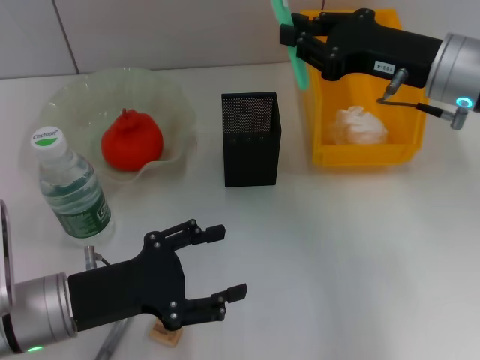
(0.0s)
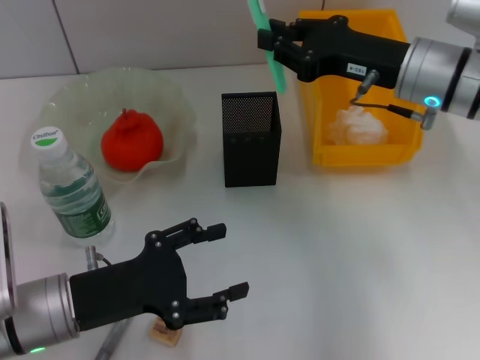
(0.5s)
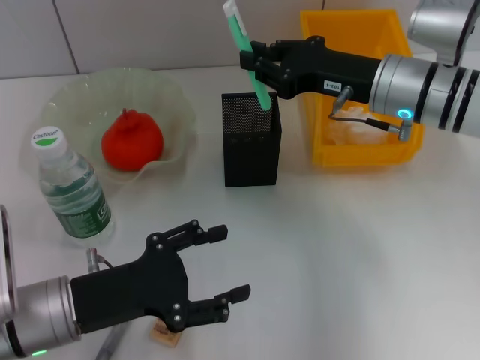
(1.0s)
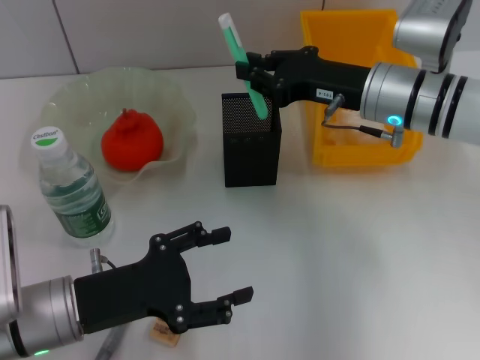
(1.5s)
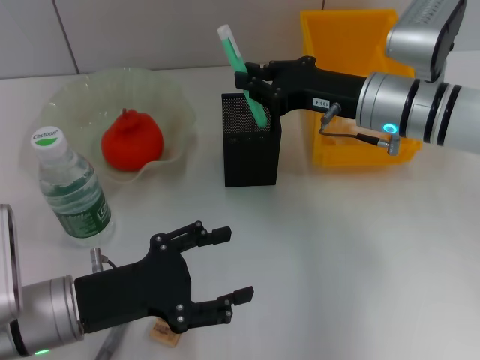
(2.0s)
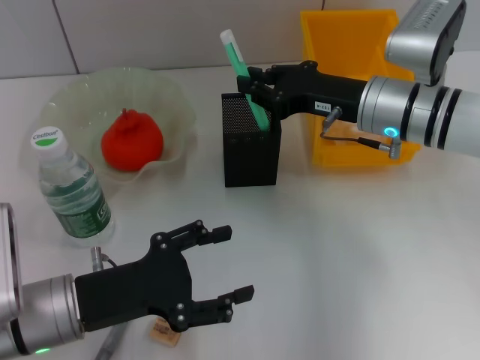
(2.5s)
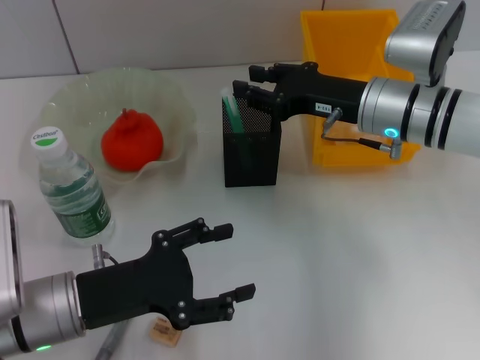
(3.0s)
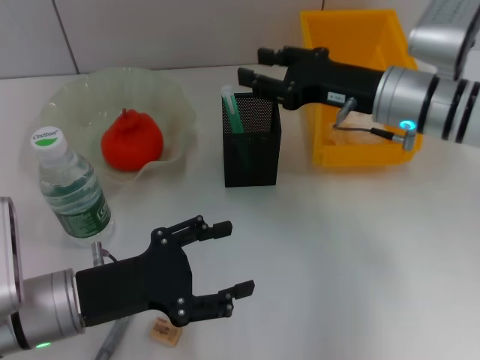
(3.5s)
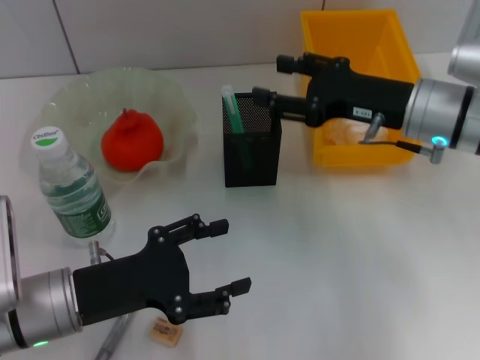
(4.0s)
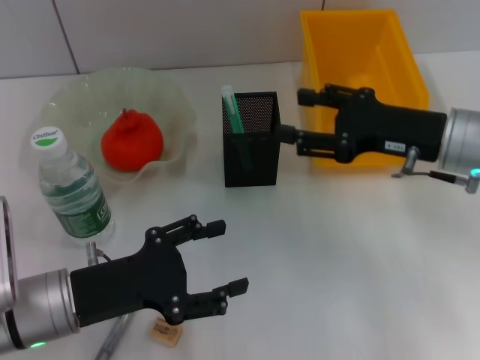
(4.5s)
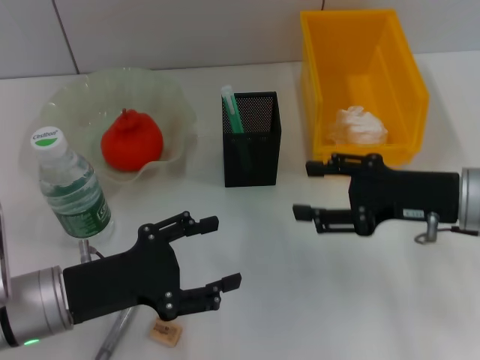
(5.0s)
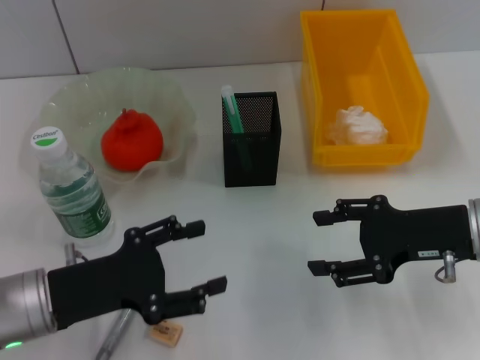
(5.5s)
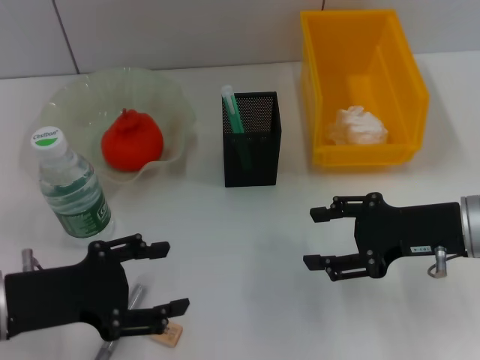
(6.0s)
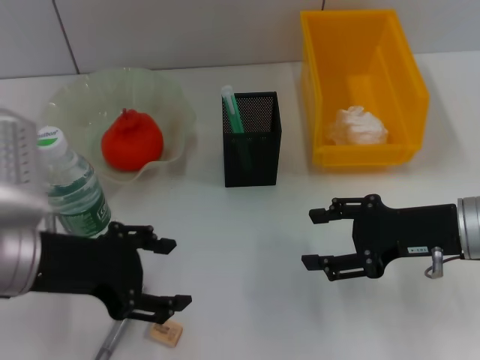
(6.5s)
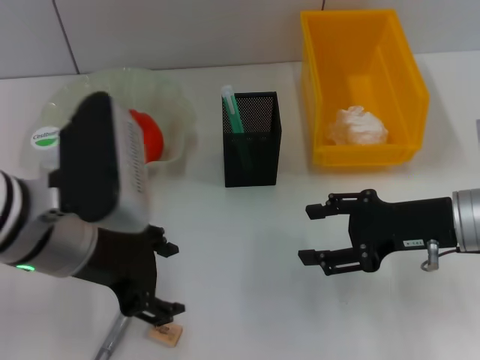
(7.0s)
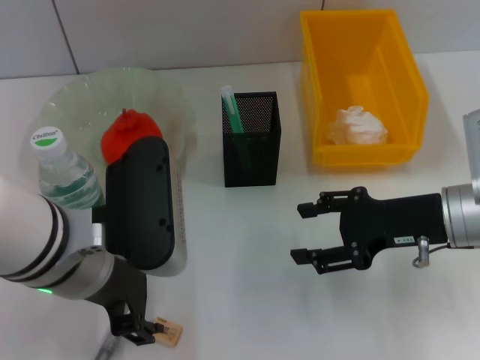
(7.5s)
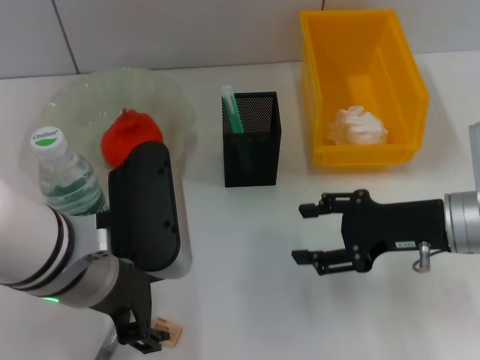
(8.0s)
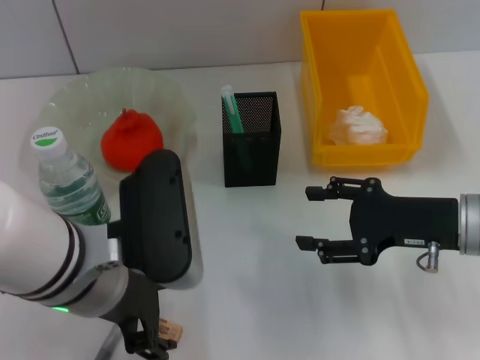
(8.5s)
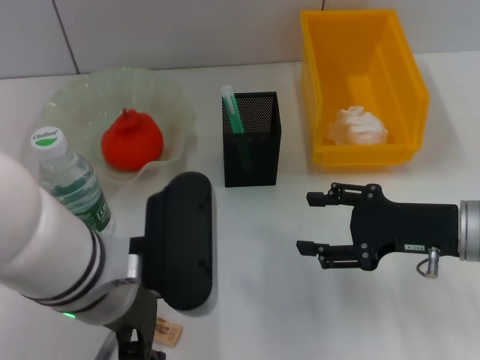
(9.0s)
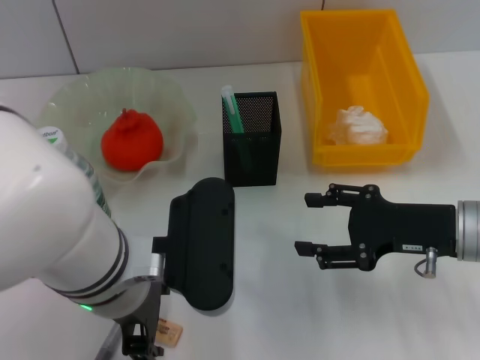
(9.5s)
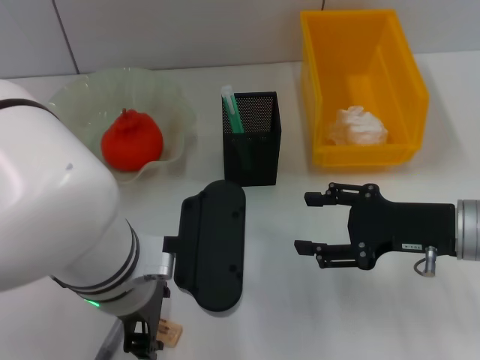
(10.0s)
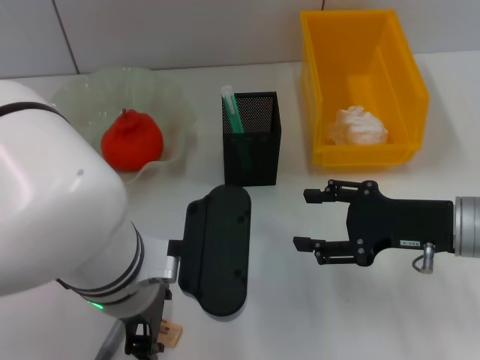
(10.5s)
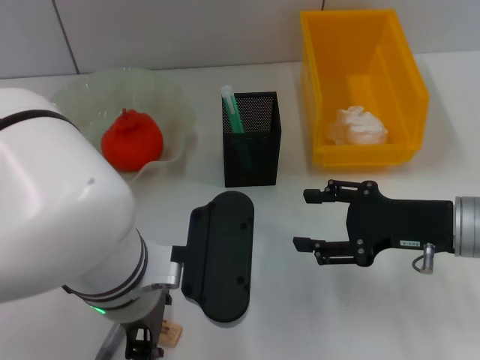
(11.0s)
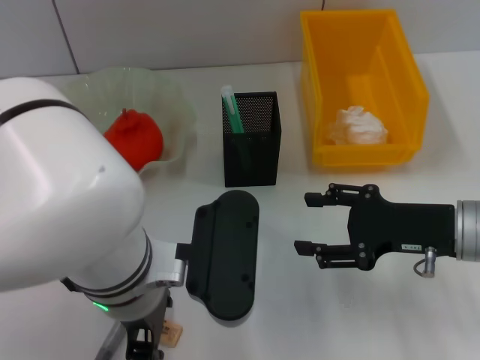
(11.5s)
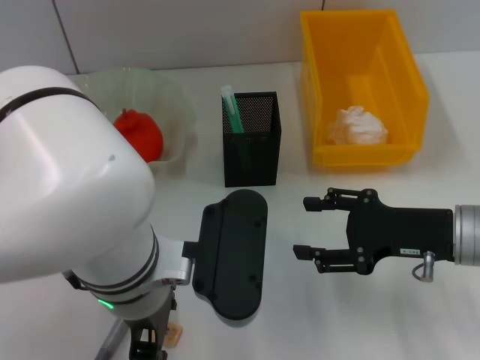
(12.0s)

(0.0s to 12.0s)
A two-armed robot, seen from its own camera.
Step, 0.0s - 3.0s: Place the blue utility knife into the pen holder with the right hand.
0.0s - 2.0s: The right gripper heads downward, covering approximately 5 cm.
2.0s - 4.0s: The right gripper opens its fingers.
4.0s - 6.0s: The left gripper changes place by approximately 5 cm. The right gripper heads backward, covering approximately 10 cm.
6.0s - 8.0s: The left gripper travels to the right and upward by approximately 10 cm.
10.0s - 12.0s: Both grippers stay put.

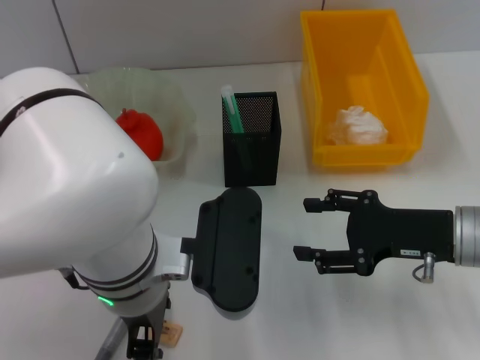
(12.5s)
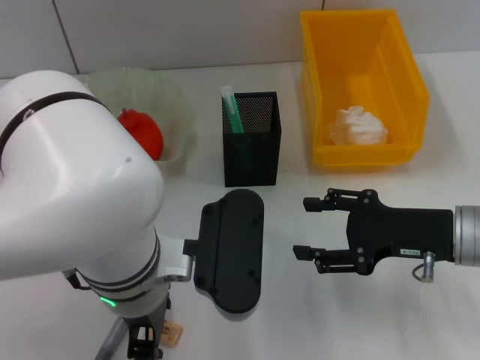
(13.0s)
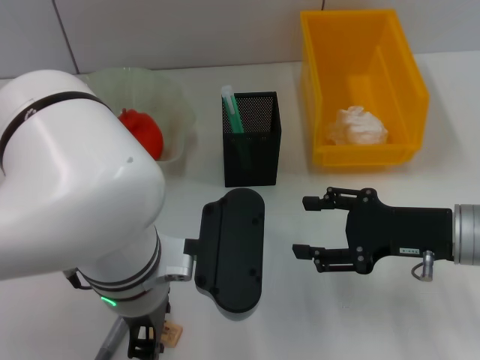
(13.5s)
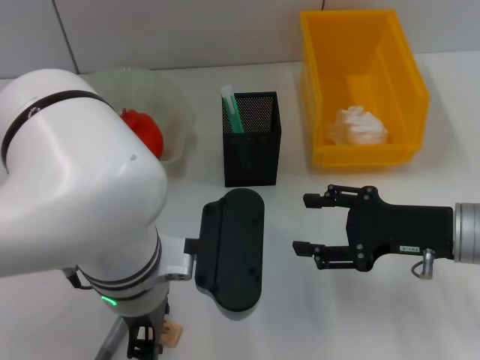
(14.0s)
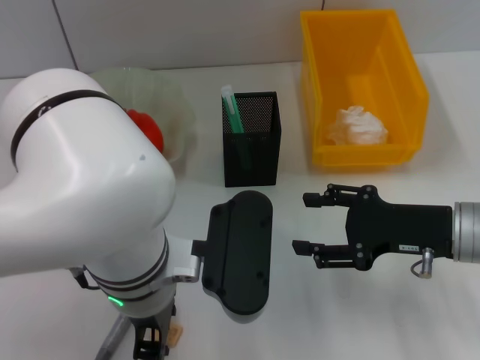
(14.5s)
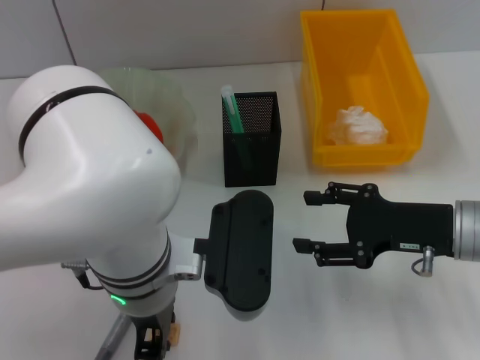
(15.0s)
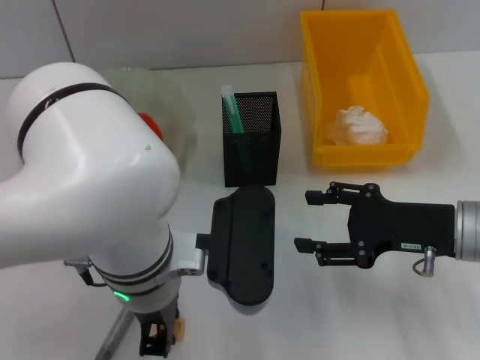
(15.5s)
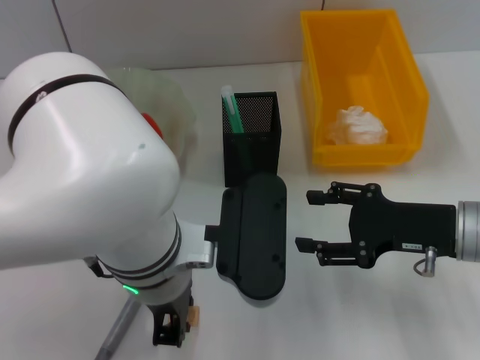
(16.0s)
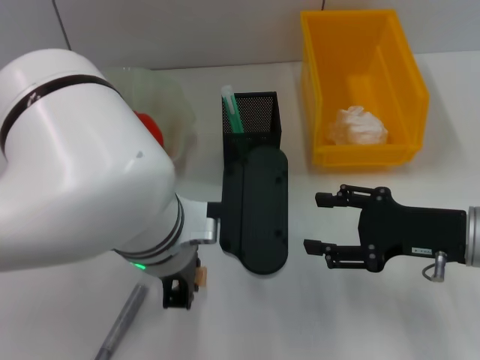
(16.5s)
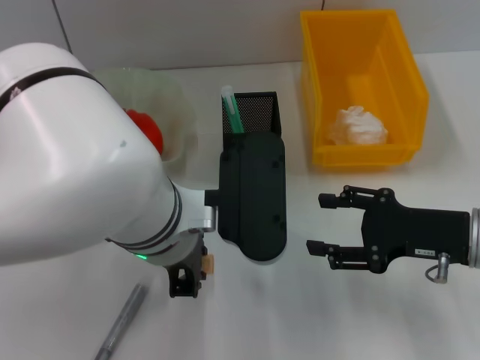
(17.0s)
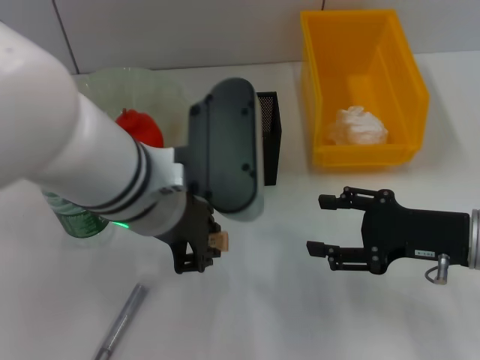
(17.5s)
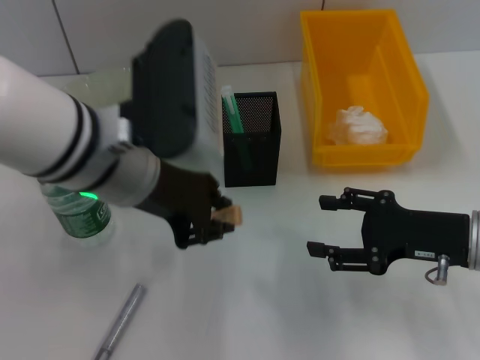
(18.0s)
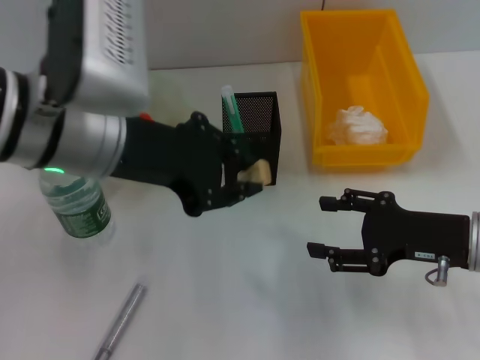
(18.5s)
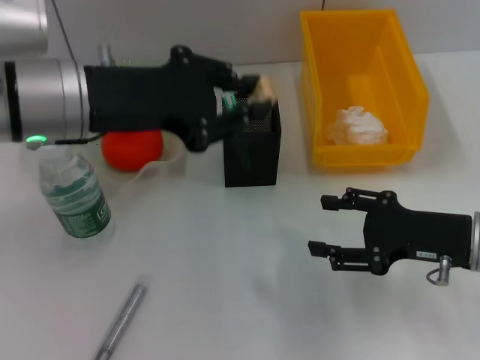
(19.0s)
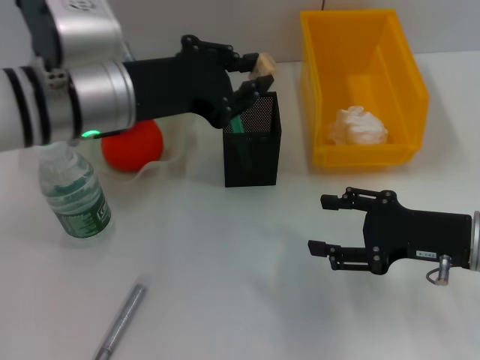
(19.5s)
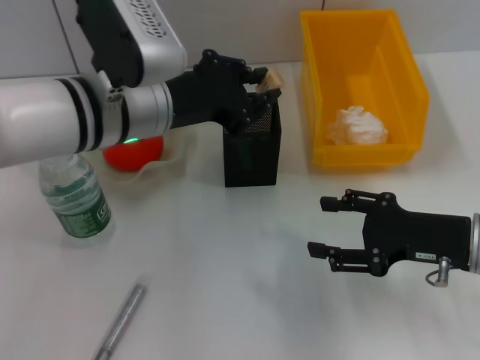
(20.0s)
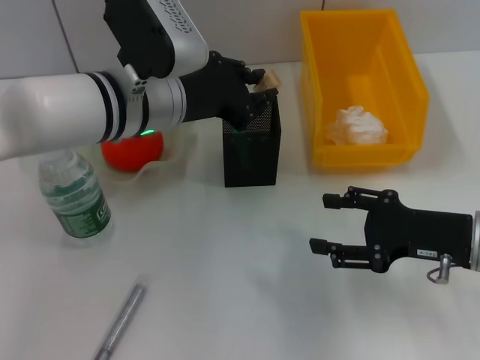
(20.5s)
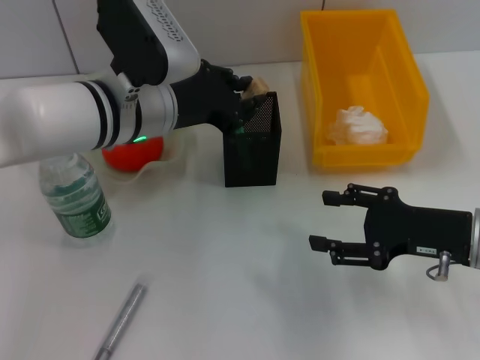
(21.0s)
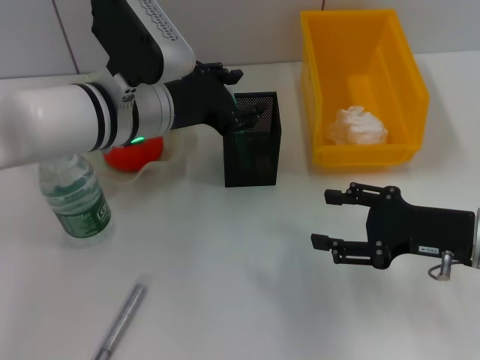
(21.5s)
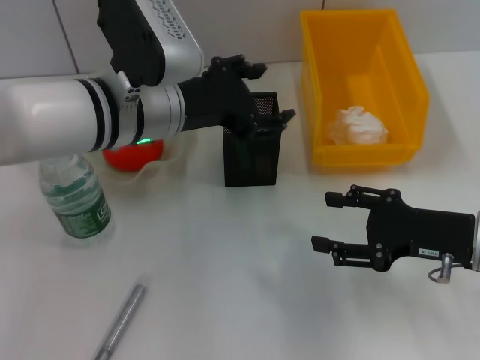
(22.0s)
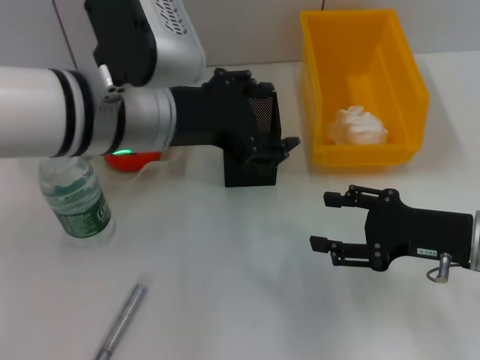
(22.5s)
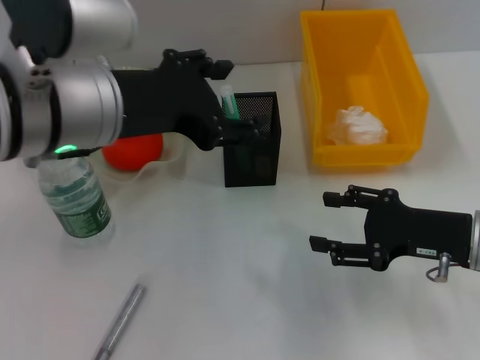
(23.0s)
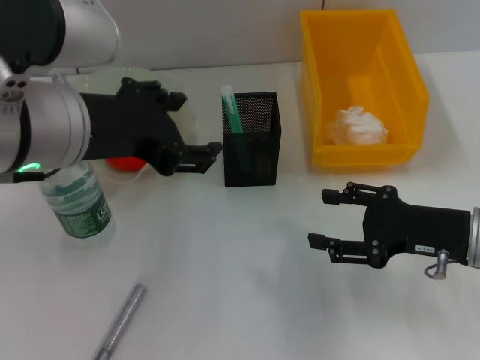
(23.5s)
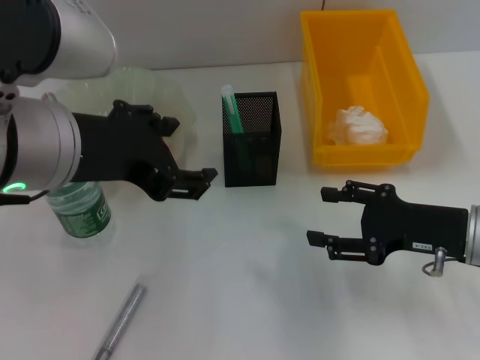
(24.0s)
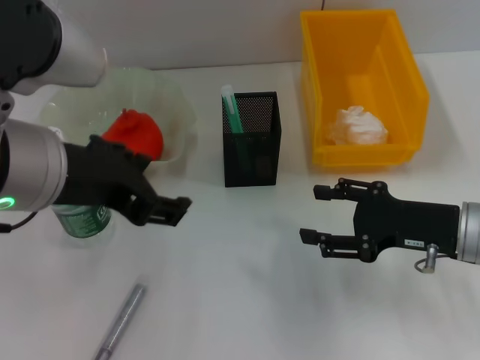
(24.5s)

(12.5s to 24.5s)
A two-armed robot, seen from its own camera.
Step, 12.5s - 15.0s: Grab the eraser with the left hand.
Step, 15.5s - 21.5s: Place the eraser into the pen holder with the left hand.
12.5s - 14.5s: Both grippers stay about where they are.
14.5s - 16.5s: There are only small adjustments of the grippers.
16.5s - 18.5s: The left gripper moves to the left and upward, approximately 10 cm.
18.5s - 20.5s: The left gripper moves forward and downward, some 10 cm.
20.5s - 22.5s: The left gripper moves backward and upward, roughly 10 cm, and opens its fingers.
22.5s - 24.5s: The left gripper shifts approximately 10 cm backward and to the left.

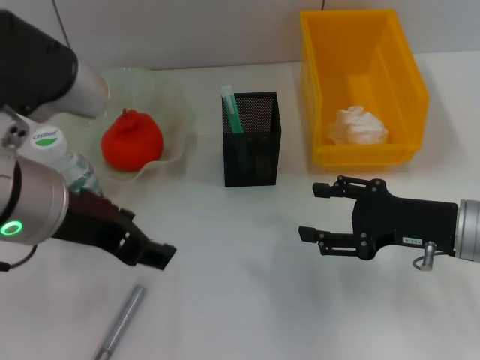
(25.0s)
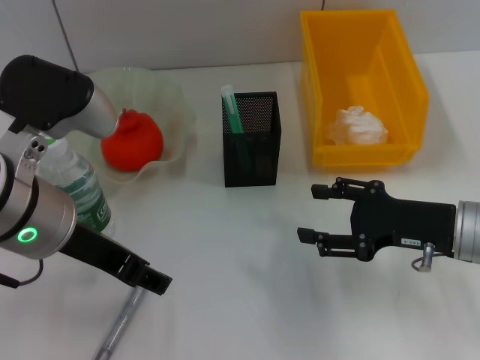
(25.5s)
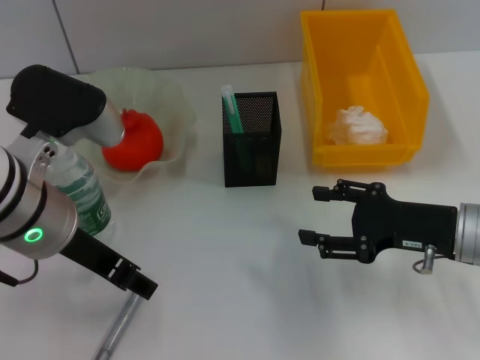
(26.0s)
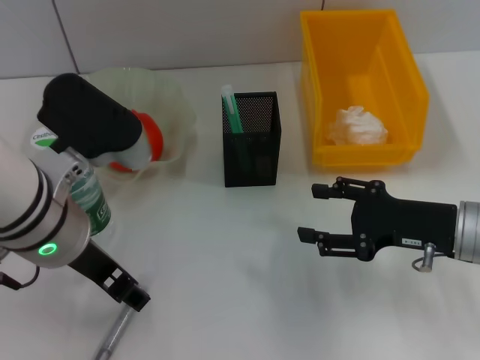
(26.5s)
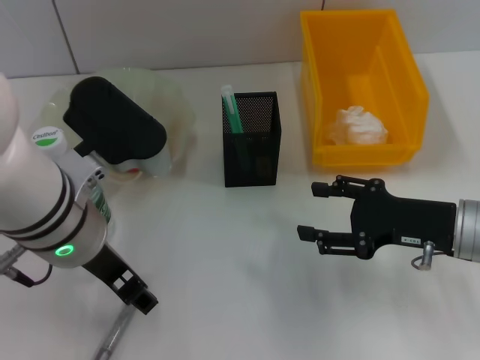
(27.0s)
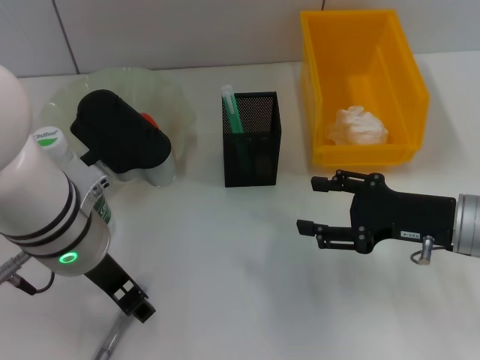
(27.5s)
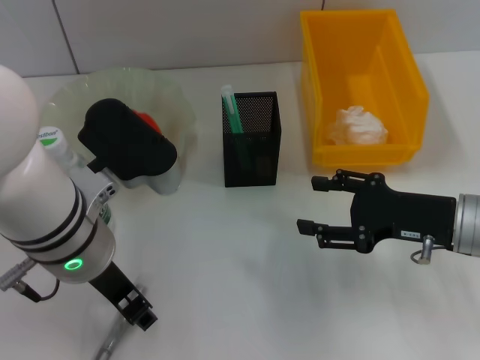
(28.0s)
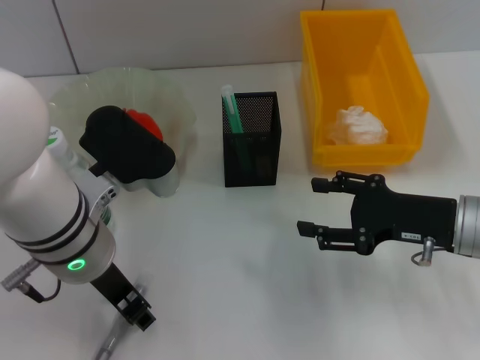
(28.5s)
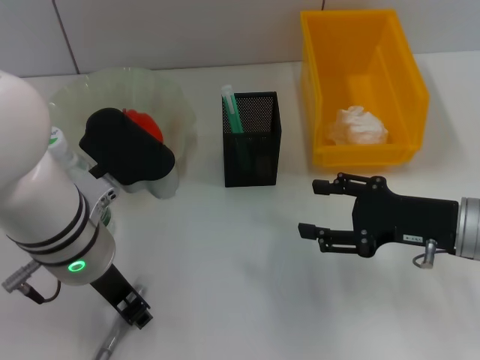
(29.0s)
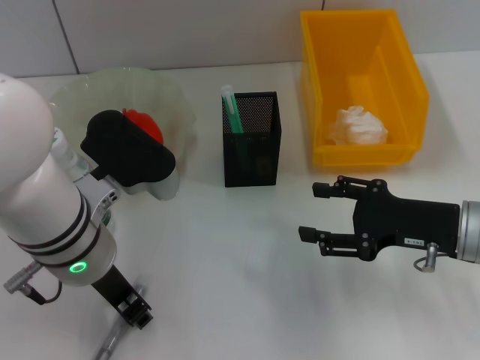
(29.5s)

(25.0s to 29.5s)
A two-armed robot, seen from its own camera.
25.0s - 27.0s: The left gripper changes place by roughly 5 cm.
27.0s - 29.5s: There are only small adjustments of the grippers.
